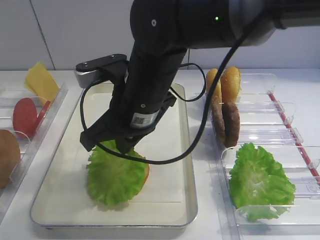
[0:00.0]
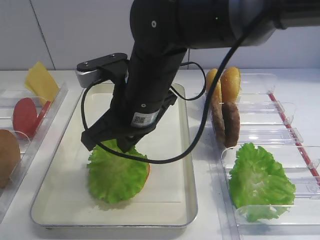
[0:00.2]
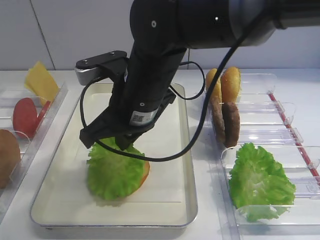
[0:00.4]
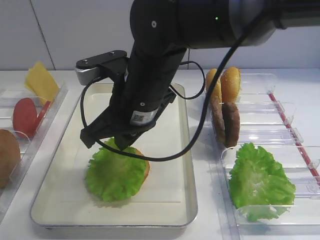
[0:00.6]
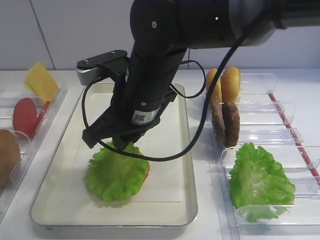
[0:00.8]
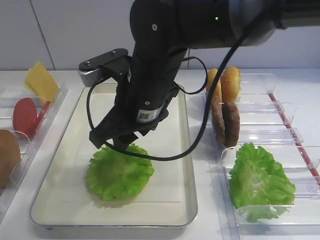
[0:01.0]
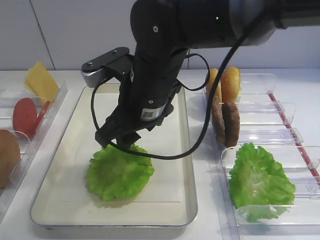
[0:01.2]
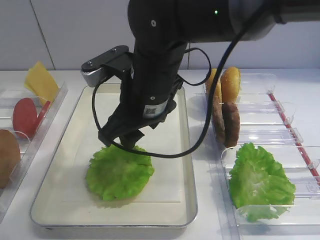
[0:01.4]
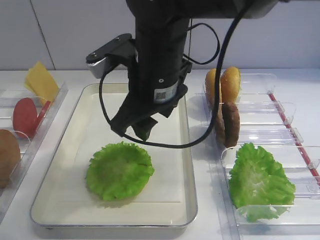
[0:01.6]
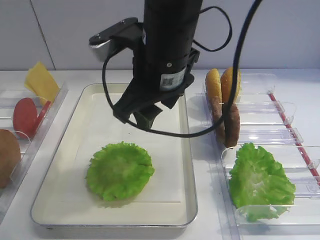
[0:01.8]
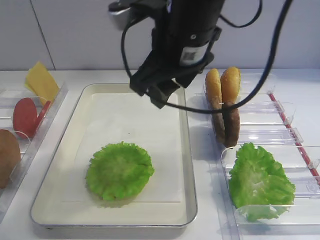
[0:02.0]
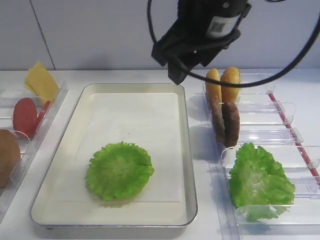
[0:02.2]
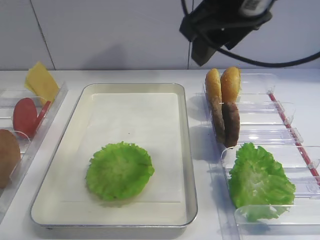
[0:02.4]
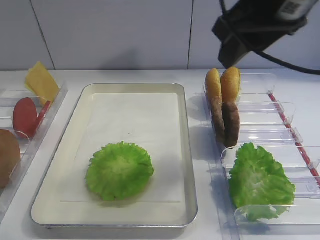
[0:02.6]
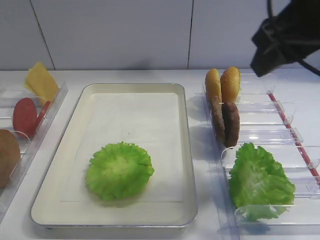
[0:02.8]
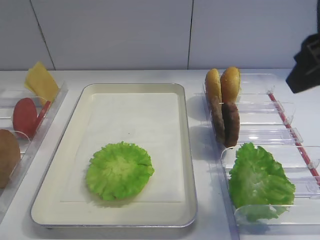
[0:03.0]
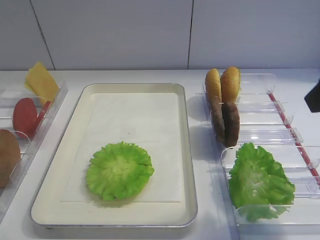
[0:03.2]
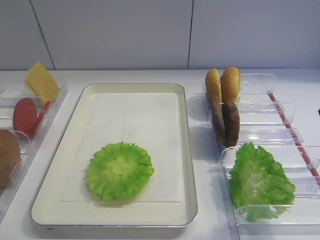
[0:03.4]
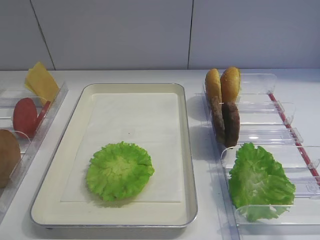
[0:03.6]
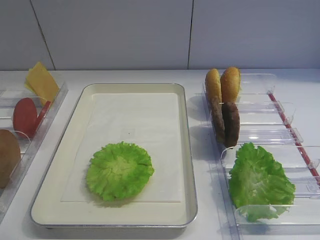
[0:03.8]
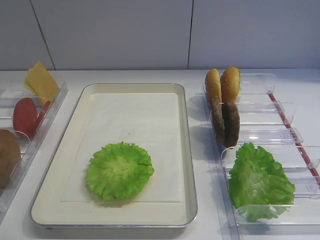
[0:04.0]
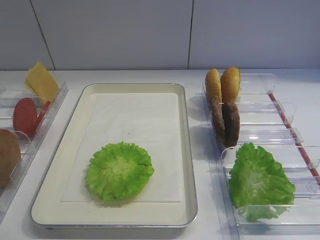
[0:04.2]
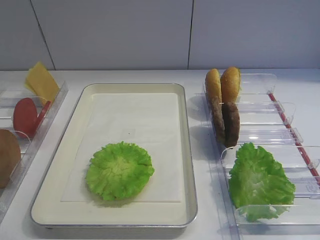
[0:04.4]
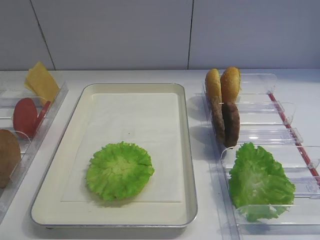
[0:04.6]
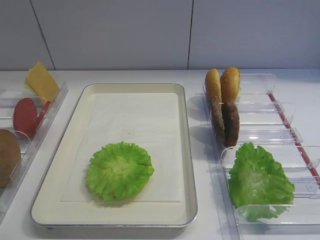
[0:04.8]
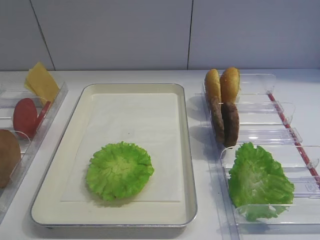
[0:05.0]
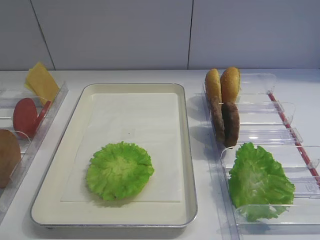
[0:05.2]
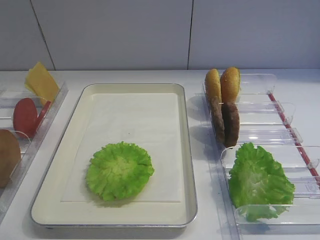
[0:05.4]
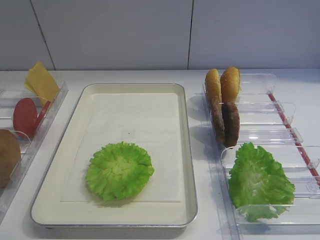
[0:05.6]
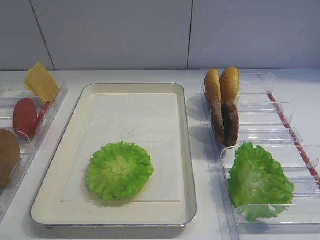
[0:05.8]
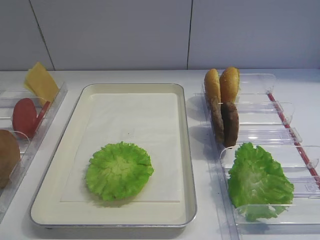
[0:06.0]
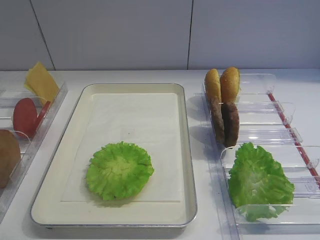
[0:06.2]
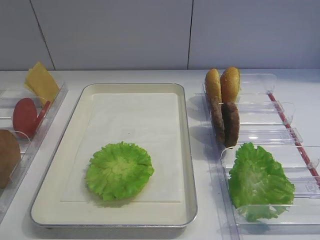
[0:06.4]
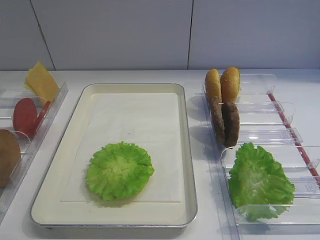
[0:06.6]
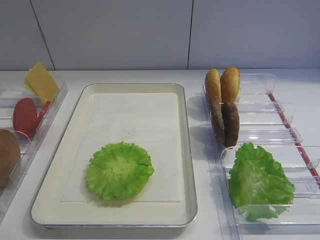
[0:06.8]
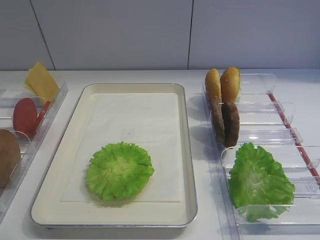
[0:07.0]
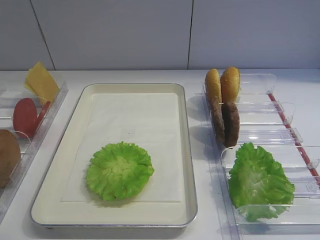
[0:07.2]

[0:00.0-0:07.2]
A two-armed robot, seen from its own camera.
0:00.0 to 0:01.4: The right gripper opens up.
0:01.4 to 0:02.8: The right gripper moves to the right and upward, approximately 20 cm.
0:02.8 to 0:04.4: The right gripper goes about 25 cm backward and to the right.

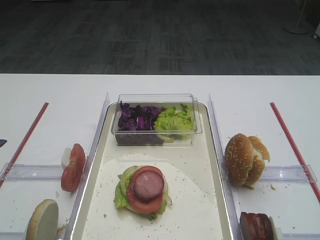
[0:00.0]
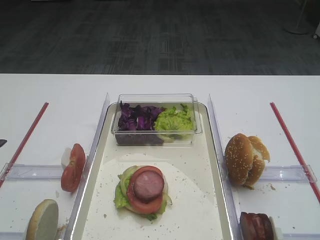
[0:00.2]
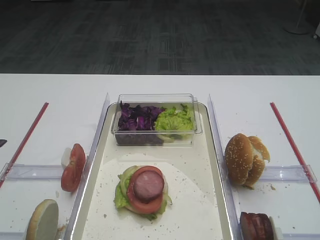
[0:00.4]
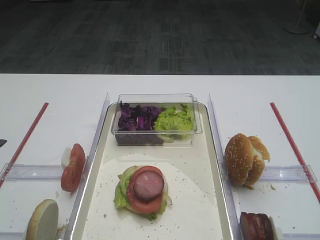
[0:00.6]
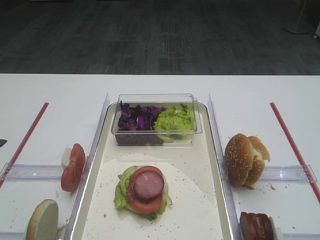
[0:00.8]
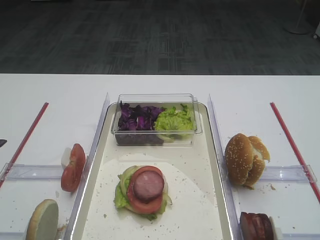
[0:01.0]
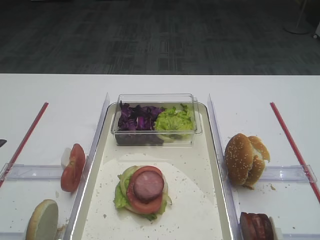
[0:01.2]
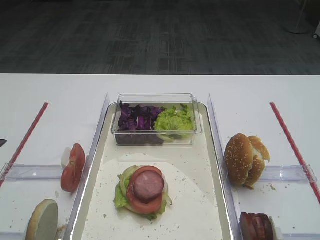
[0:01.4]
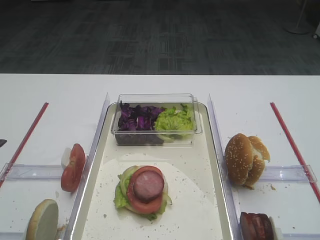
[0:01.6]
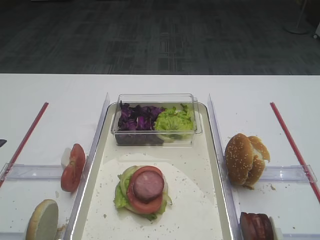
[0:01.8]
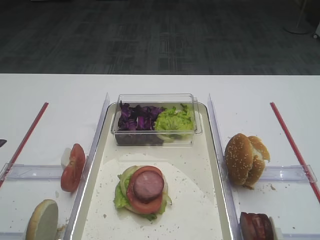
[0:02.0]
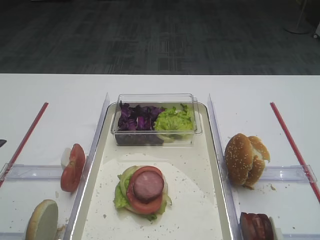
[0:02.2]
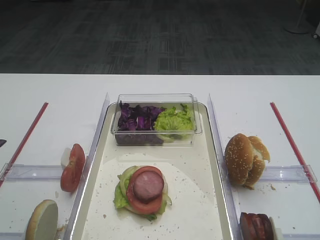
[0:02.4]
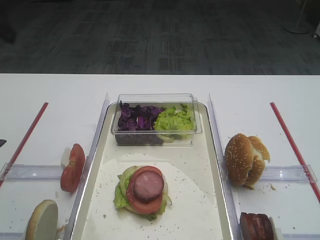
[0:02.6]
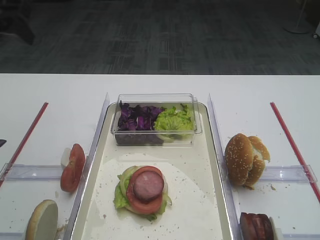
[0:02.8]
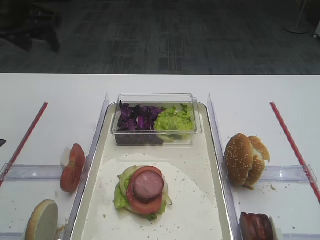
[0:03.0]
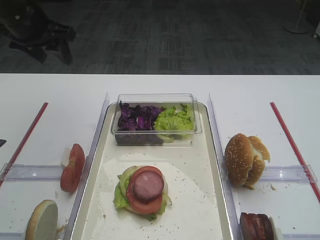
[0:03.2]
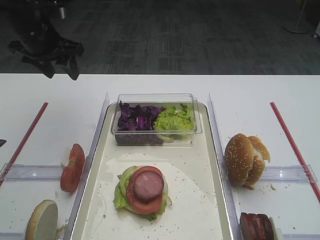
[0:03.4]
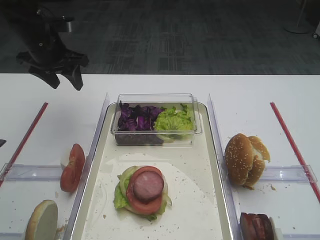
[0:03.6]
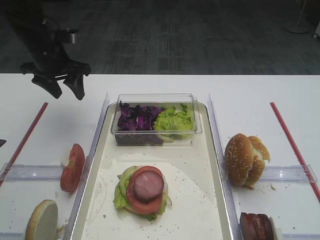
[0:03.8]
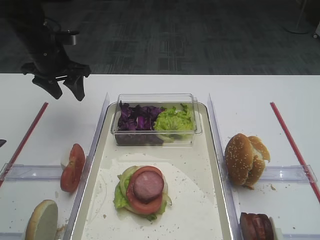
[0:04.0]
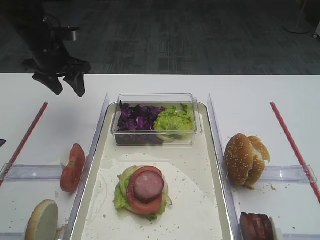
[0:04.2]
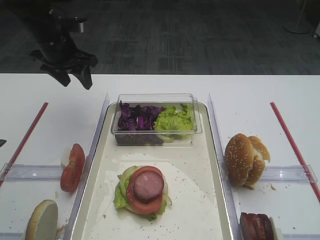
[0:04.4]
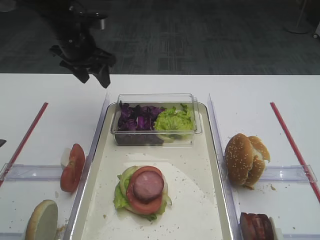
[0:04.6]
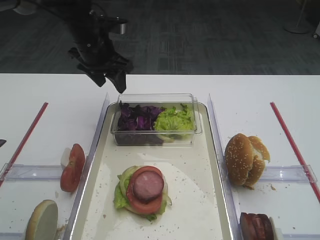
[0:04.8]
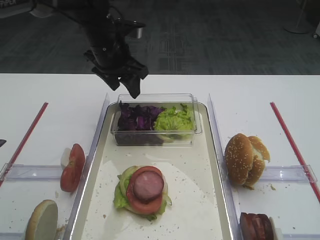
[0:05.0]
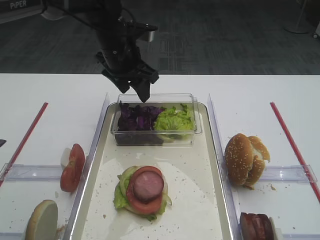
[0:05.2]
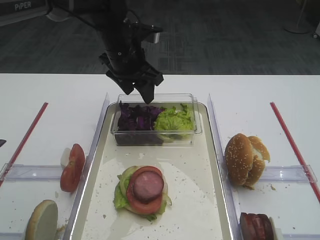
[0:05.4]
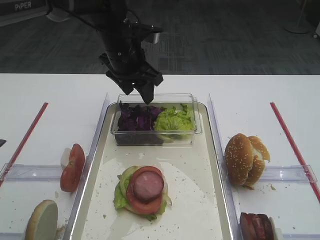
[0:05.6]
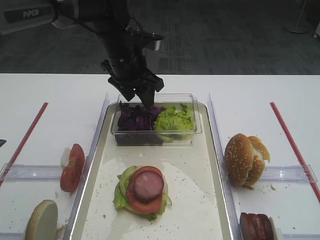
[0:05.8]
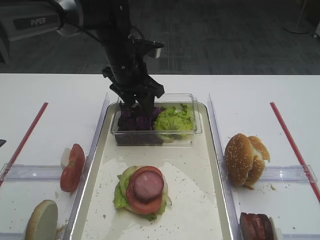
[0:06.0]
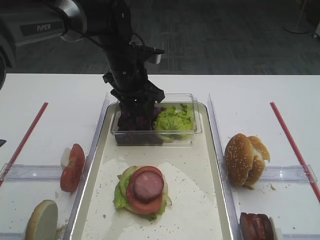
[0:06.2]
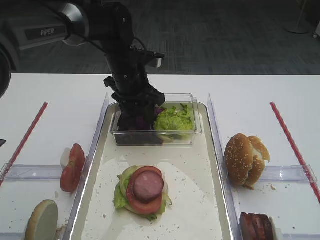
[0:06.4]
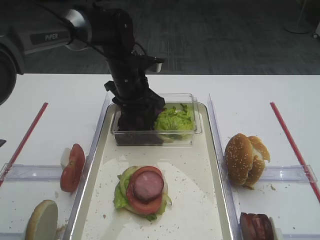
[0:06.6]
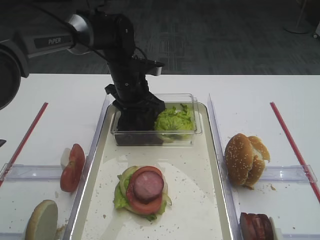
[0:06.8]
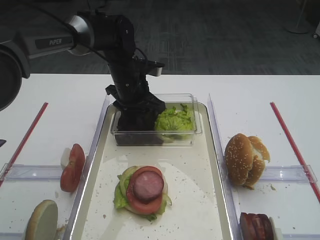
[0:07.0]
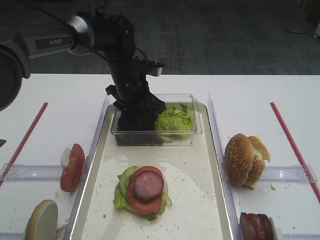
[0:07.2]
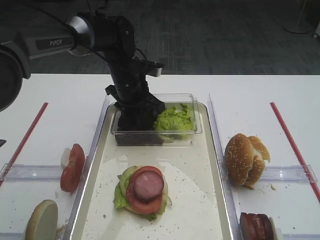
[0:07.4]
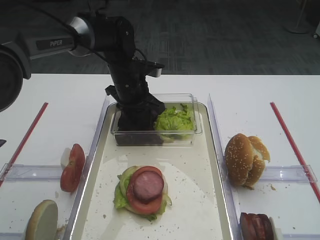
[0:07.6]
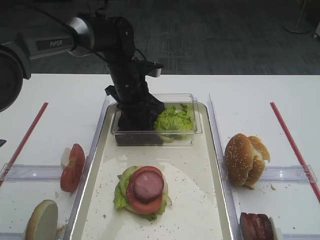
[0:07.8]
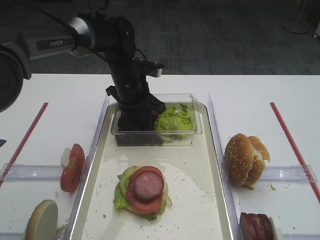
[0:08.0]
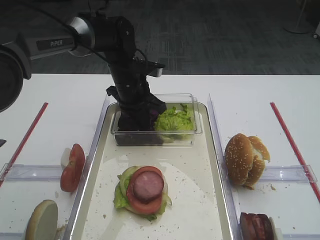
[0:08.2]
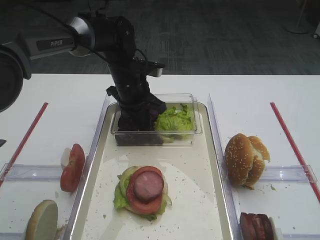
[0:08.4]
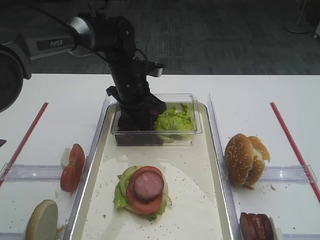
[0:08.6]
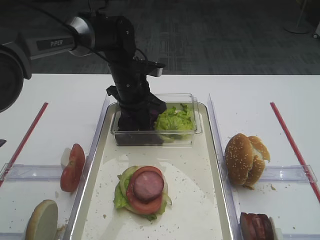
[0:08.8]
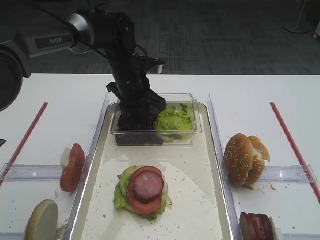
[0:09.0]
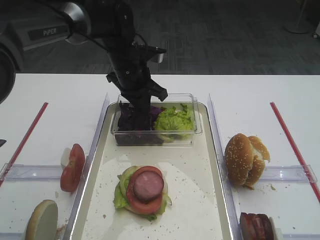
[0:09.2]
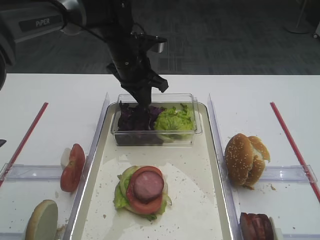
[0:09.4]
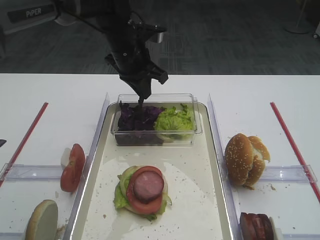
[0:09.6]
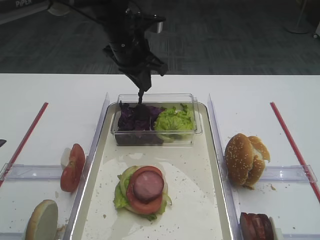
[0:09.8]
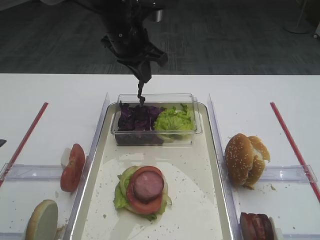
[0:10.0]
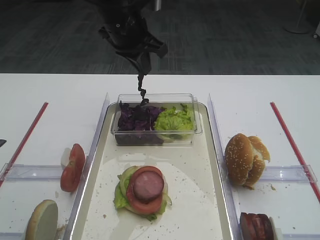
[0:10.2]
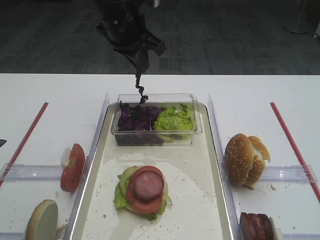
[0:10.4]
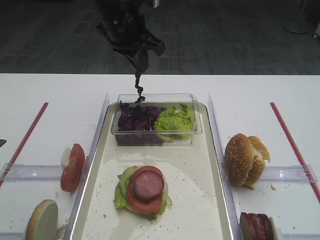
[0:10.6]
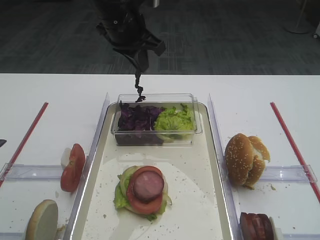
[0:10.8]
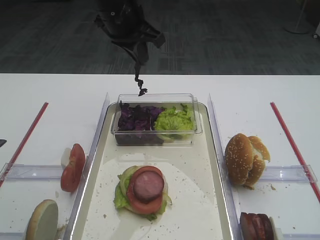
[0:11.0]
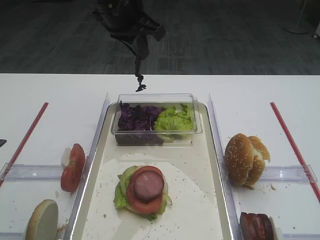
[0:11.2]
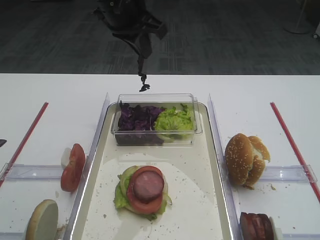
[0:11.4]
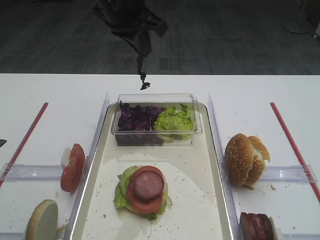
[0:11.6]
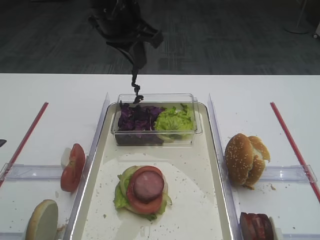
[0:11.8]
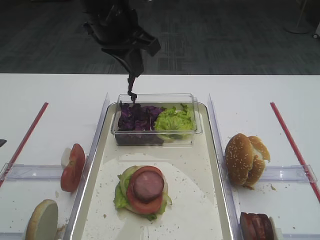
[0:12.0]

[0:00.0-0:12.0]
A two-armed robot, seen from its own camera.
Step, 0:00.0 to 0:09.6: Pick up the purple cabbage with the left gripper.
0:01.6 to 0:03.0: The left gripper moves forward, roughly 40 cm.
0:03.0 to 0:04.4: The left gripper shifts some 15 cm downward and forward.
0:04.4 to 0:06.0: The left gripper goes about 15 cm to the right.
0:06.0 to 0:07.6: The grippers move only a little.
0:07.6 to 0:09.0: The left gripper closes up.
0:09.0 to 0:10.4: The left gripper goes roughly 15 cm upward.
0:10.4 to 0:12.0: The left gripper is displaced backward by roughly 5 cm.

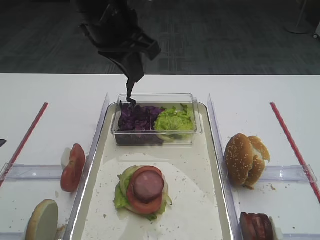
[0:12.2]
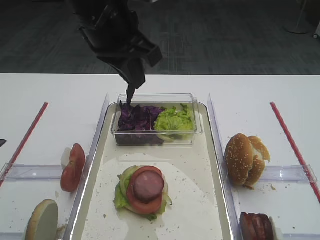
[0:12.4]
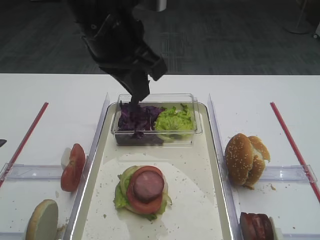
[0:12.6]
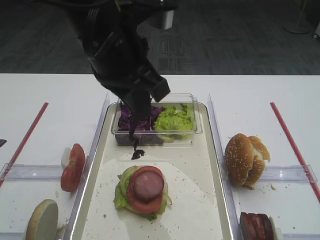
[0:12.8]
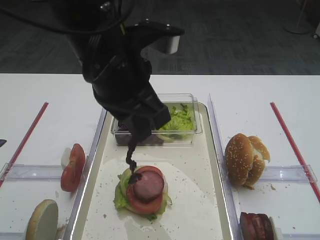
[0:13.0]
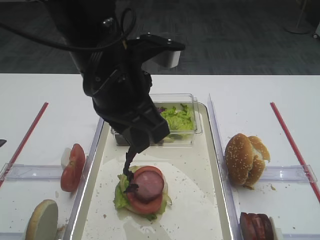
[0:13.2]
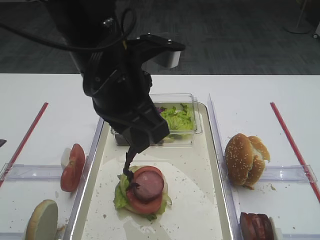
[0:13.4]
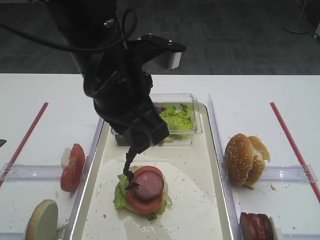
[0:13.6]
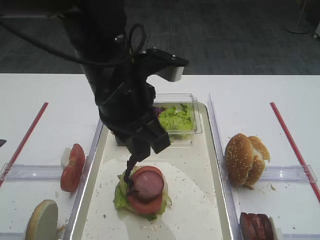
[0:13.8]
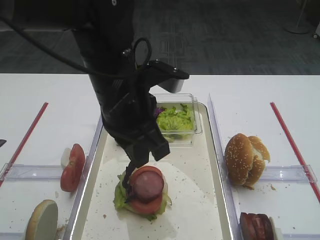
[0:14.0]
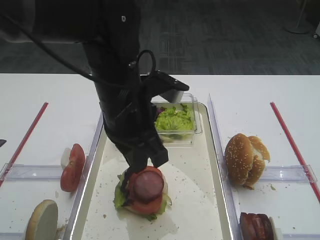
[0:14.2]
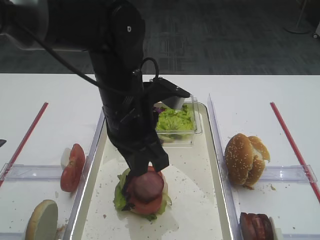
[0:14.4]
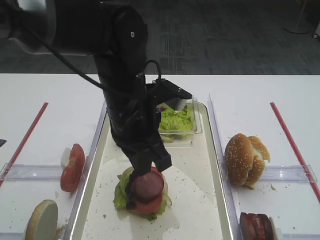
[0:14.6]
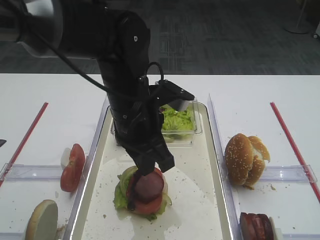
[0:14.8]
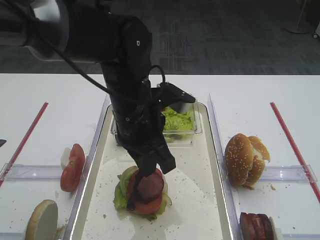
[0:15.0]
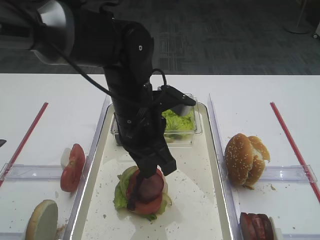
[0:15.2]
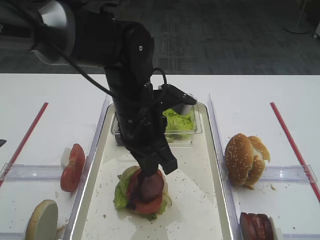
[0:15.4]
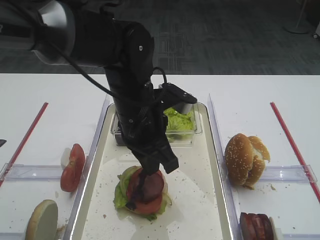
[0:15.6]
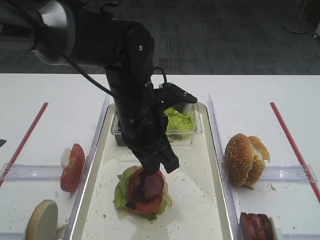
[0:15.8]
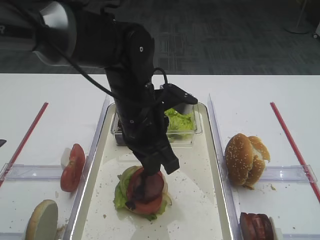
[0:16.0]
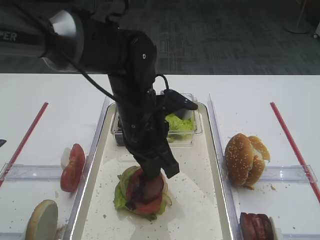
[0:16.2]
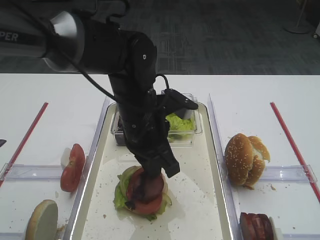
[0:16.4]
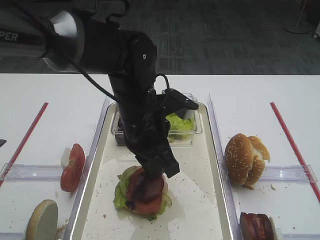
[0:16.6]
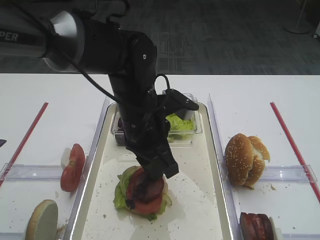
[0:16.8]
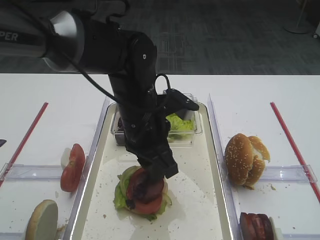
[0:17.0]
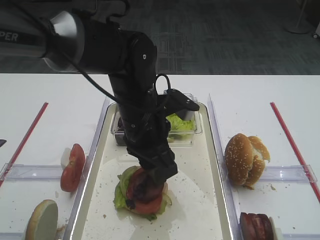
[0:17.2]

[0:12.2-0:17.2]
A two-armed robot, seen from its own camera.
0:12.2 to 0:13.8: The left gripper travels backward and downward by about 10 cm.
0:13.8 to 0:15.6: The left gripper heads downward, covering about 10 cm.
0:15.6 to 0:17.2: The left gripper opens.
